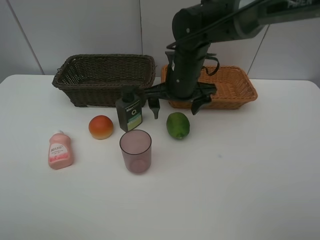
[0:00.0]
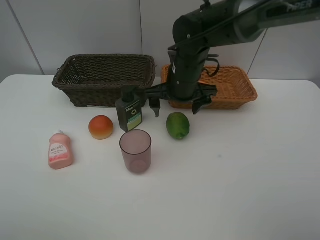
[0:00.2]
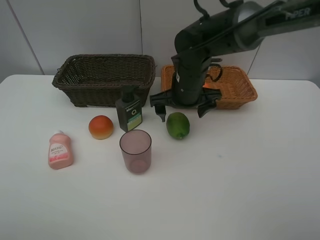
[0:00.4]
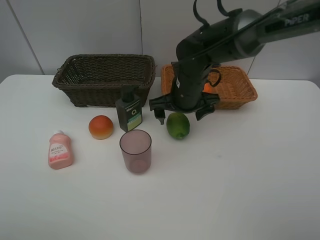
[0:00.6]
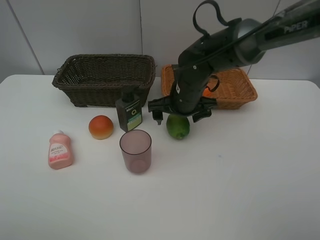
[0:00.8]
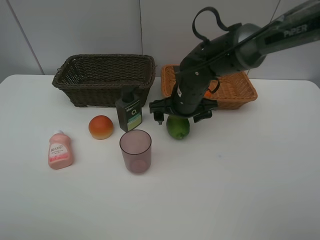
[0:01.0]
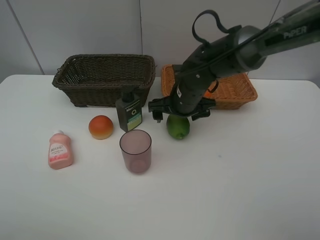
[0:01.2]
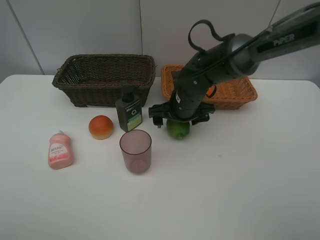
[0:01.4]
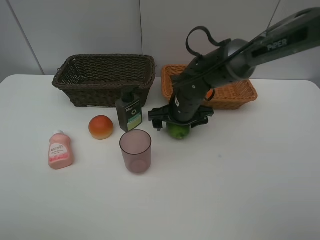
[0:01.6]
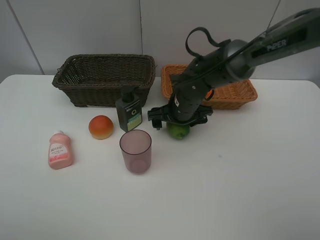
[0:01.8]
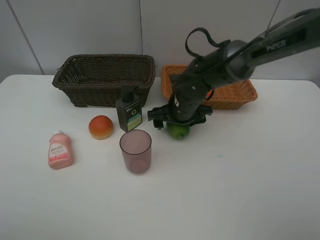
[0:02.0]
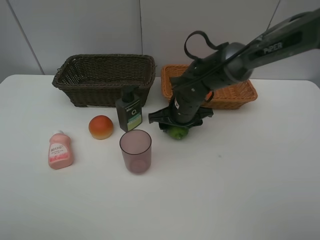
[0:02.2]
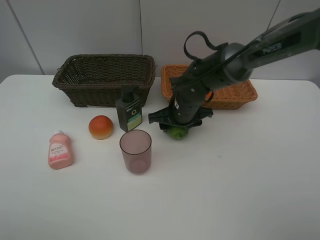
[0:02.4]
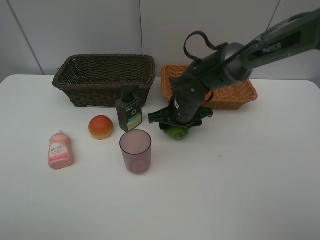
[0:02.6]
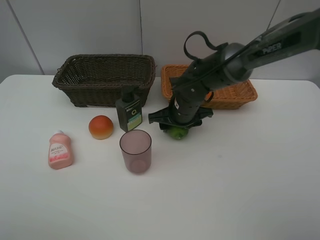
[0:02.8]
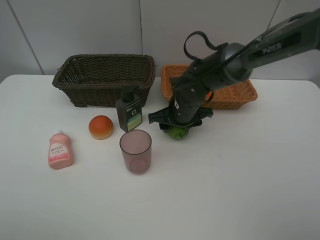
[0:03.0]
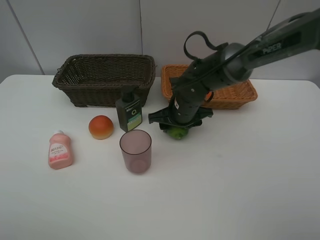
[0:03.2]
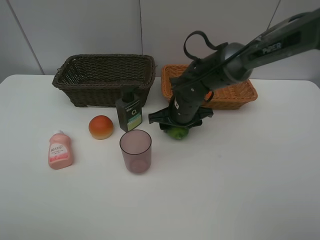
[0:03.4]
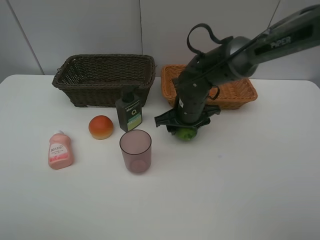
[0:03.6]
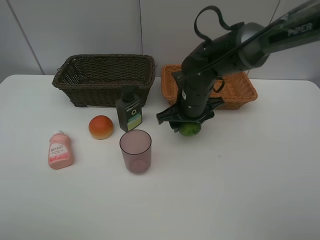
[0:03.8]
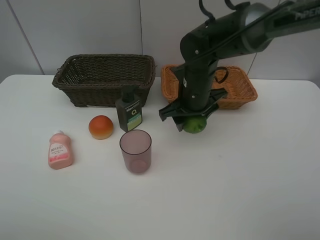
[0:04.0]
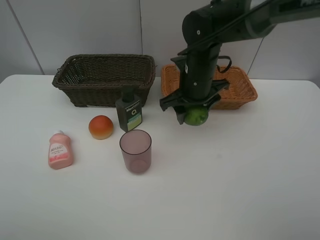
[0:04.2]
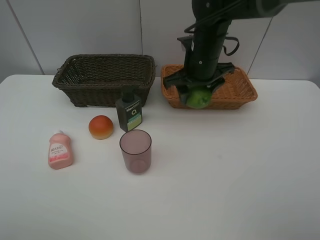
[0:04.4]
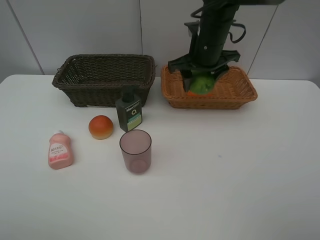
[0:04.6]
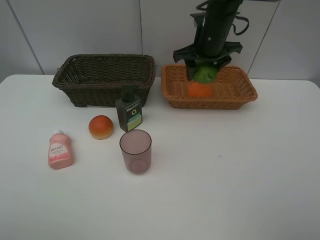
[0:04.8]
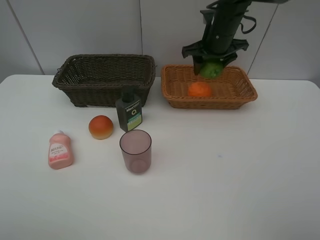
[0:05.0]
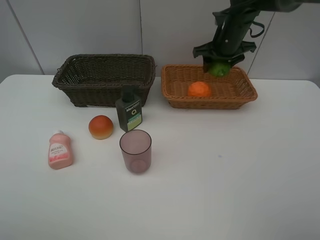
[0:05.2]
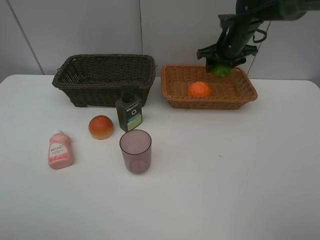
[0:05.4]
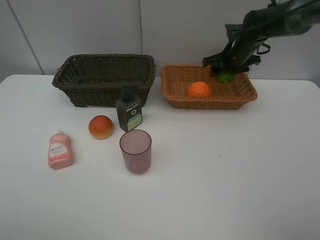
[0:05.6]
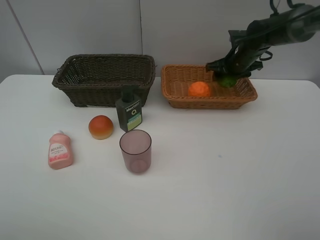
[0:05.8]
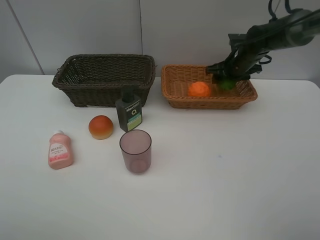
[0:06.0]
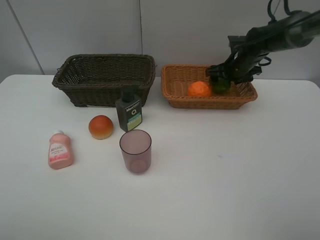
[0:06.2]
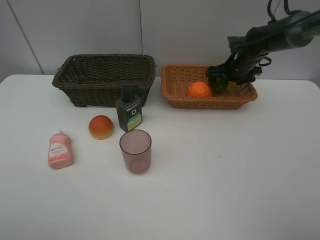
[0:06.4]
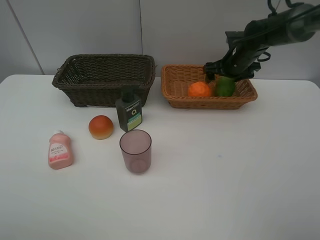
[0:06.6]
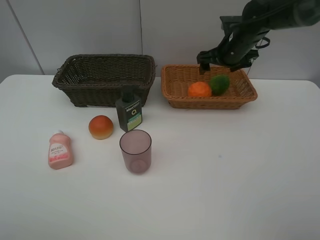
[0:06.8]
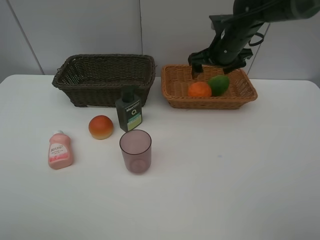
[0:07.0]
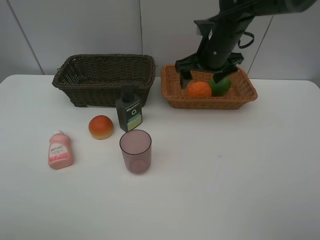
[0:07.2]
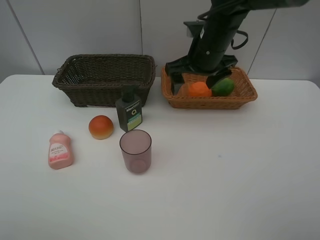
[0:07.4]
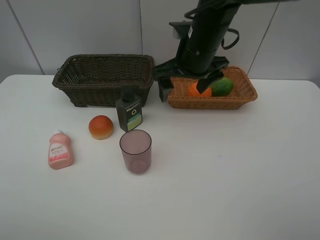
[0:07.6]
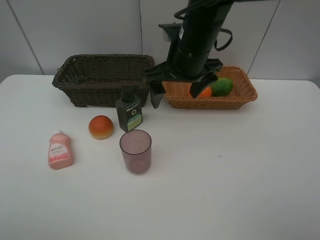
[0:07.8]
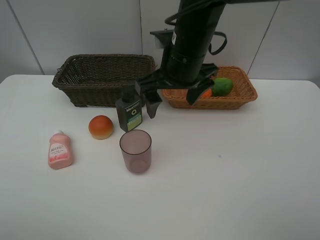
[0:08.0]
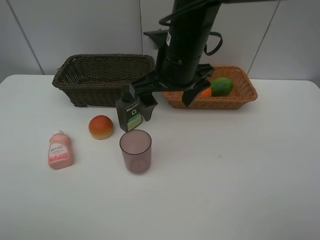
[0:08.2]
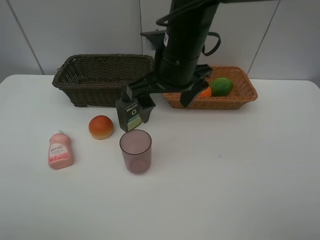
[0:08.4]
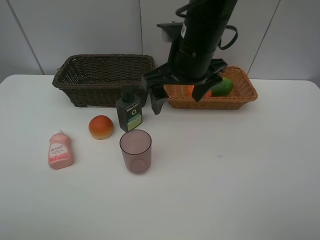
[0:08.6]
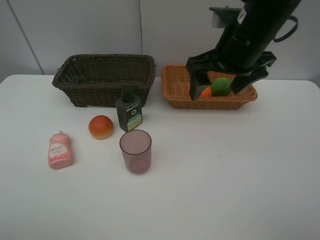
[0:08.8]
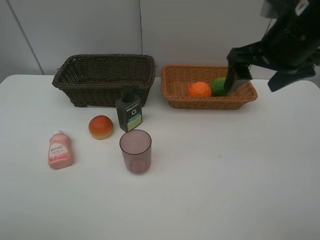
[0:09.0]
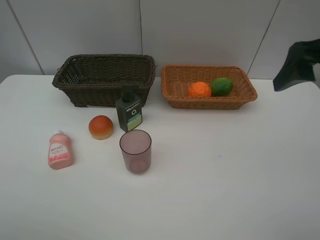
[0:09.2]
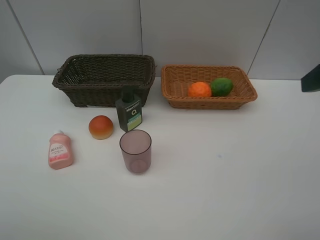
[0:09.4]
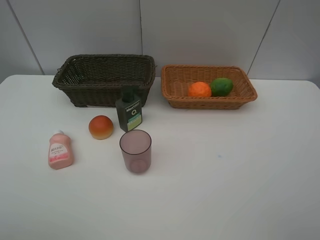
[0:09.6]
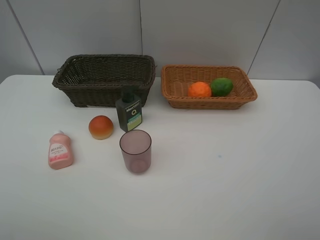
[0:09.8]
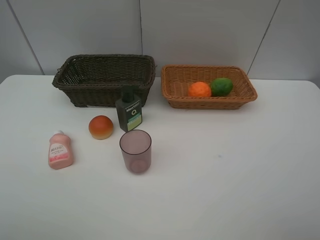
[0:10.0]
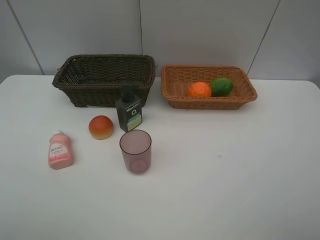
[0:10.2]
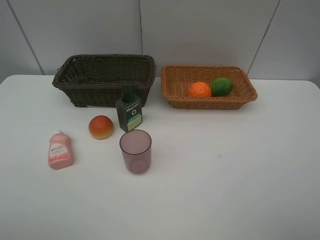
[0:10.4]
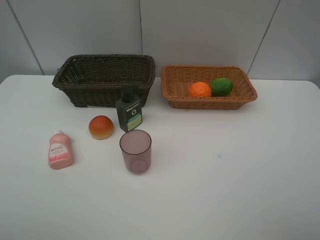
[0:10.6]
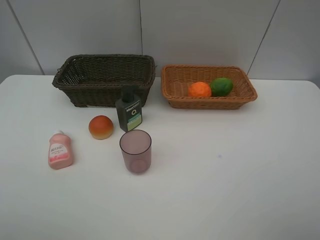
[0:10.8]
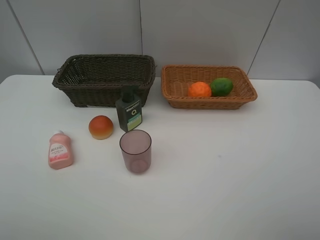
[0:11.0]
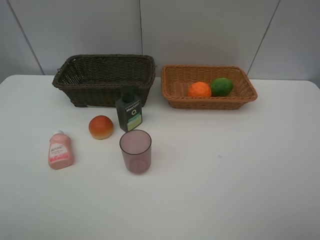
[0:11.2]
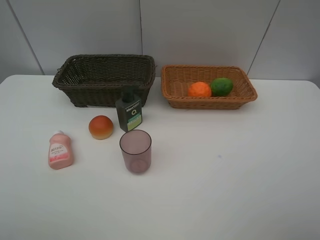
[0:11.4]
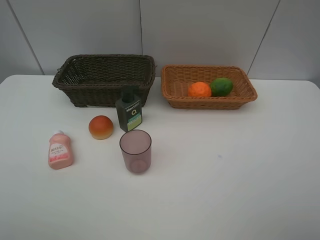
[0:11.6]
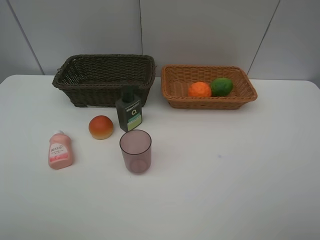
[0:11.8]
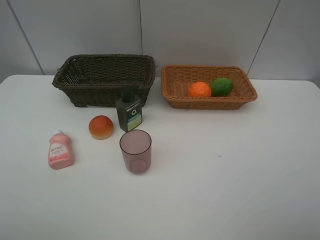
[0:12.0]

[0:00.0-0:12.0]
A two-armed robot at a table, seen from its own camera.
Task of the whole recording: place multiple objects separately in different baskets.
0:00.0 to 0:01.6: The right gripper shifts roughly 10 cm downward.
0:01.6 to 0:03.0: The right gripper closes.
0:03.0 to 0:04.4: The right gripper travels upward by about 10 cm.
0:04.4 to 0:06.0: The right gripper travels to the right, forward and downward by some 20 cm.
0:06.0 to 0:07.6: The right gripper shifts approximately 25 cm to the left, backward and upward, and opens its fingers.
0:07.6 to 0:09.0: The right gripper heads to the right, backward and upward, covering some 15 cm.
0:09.0 to 0:10.4: The right gripper moves backward, approximately 25 cm.

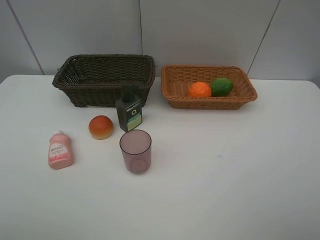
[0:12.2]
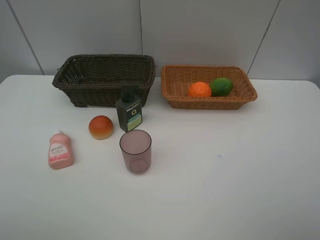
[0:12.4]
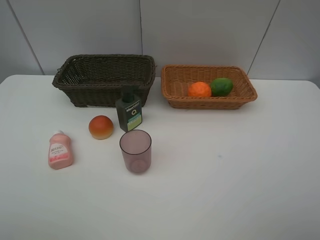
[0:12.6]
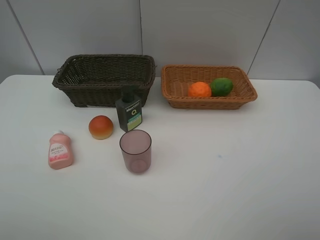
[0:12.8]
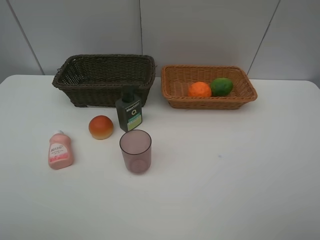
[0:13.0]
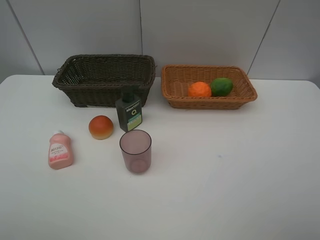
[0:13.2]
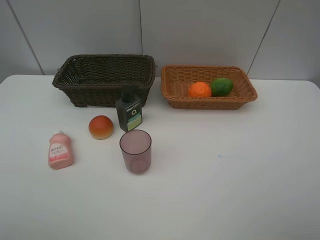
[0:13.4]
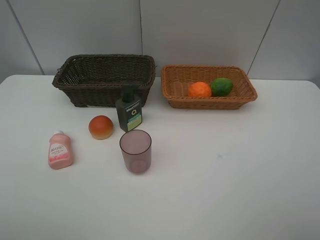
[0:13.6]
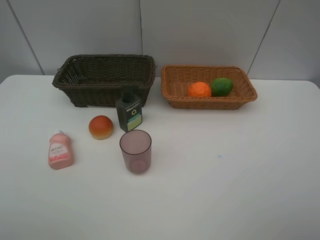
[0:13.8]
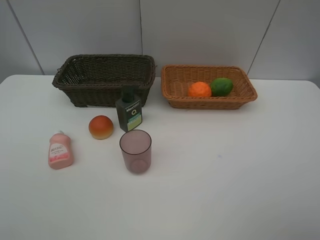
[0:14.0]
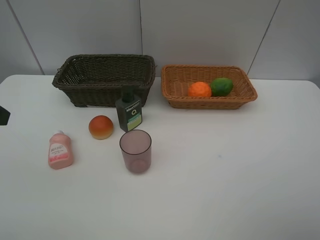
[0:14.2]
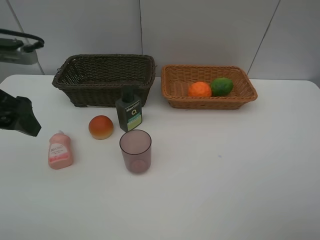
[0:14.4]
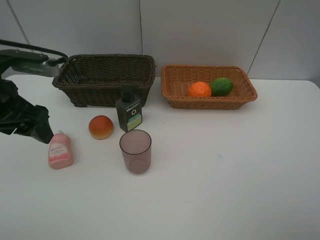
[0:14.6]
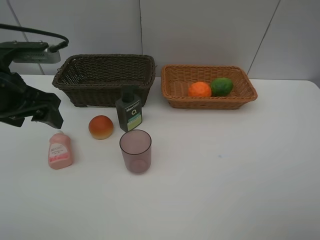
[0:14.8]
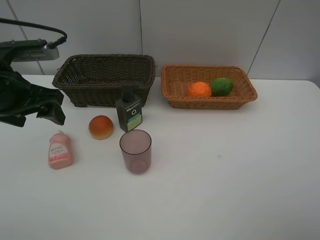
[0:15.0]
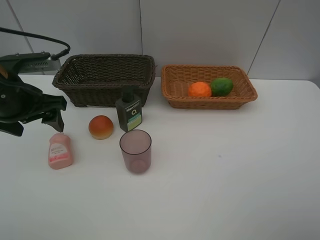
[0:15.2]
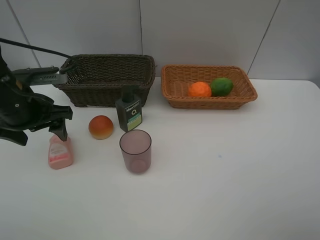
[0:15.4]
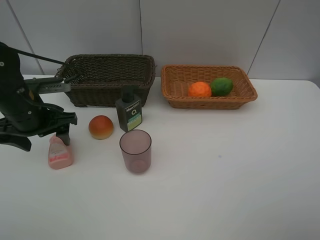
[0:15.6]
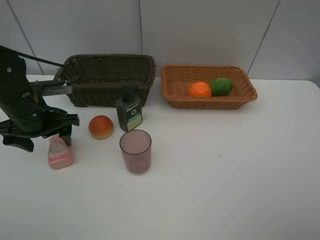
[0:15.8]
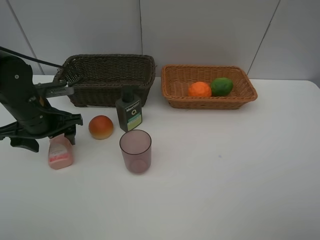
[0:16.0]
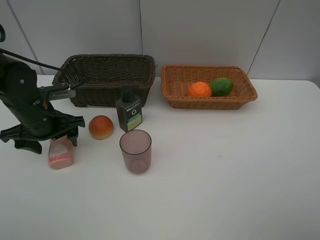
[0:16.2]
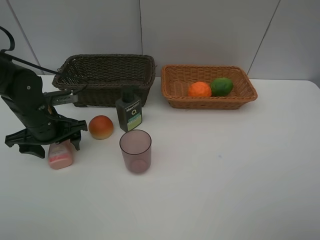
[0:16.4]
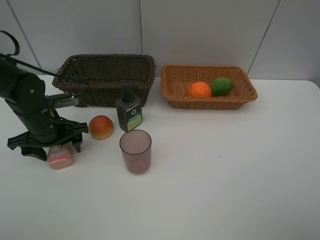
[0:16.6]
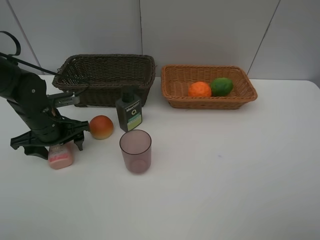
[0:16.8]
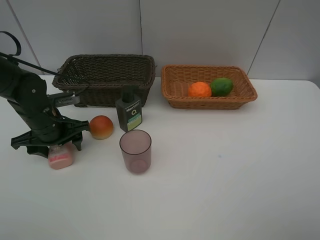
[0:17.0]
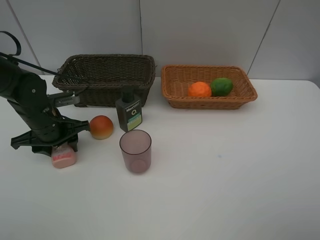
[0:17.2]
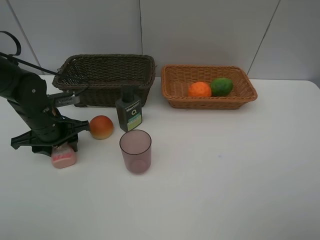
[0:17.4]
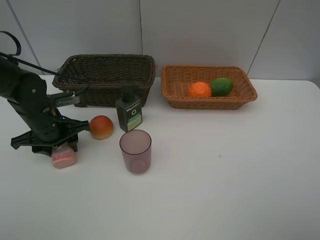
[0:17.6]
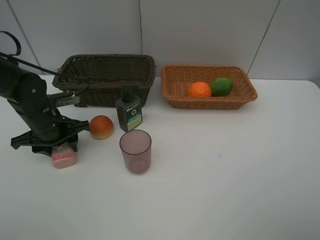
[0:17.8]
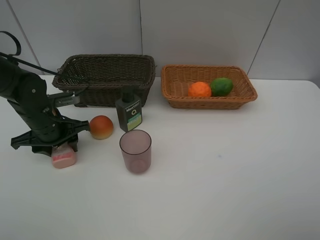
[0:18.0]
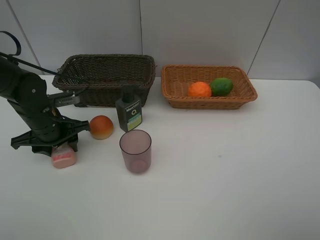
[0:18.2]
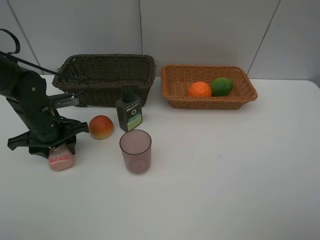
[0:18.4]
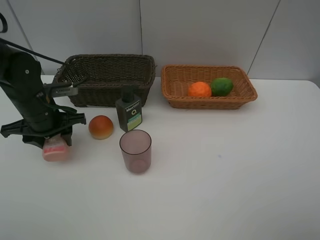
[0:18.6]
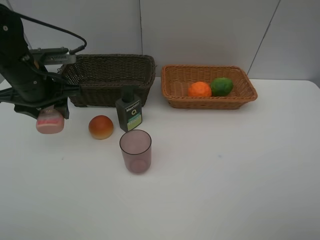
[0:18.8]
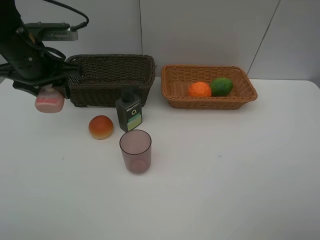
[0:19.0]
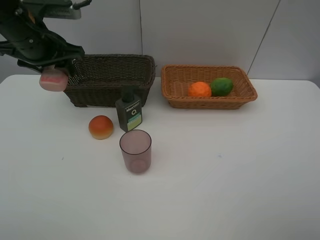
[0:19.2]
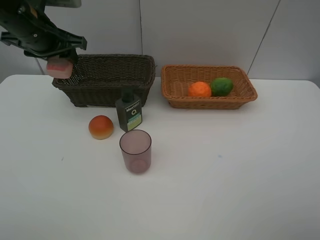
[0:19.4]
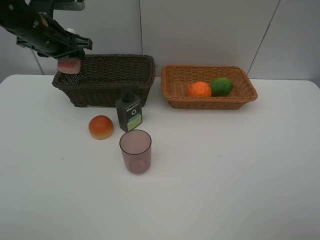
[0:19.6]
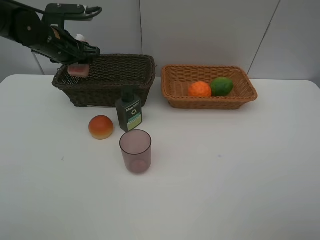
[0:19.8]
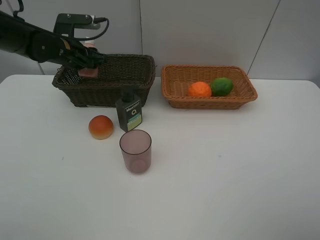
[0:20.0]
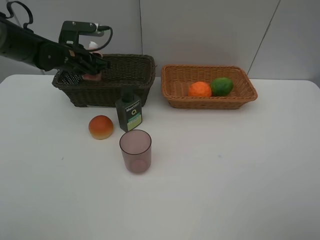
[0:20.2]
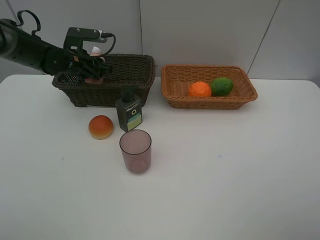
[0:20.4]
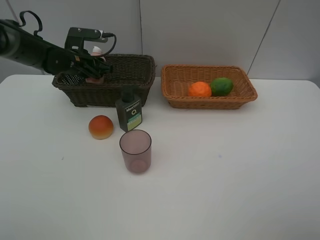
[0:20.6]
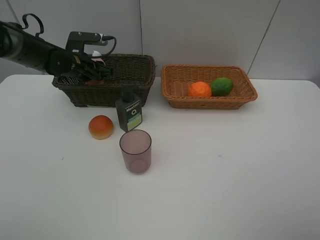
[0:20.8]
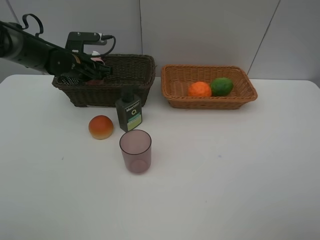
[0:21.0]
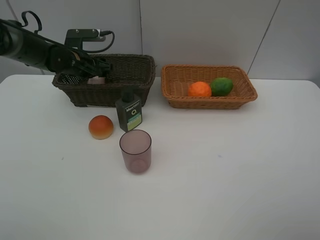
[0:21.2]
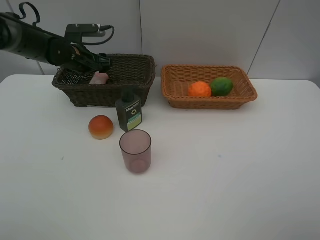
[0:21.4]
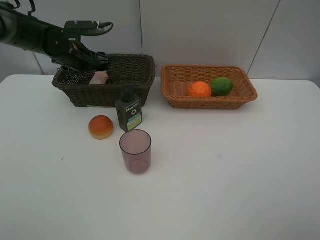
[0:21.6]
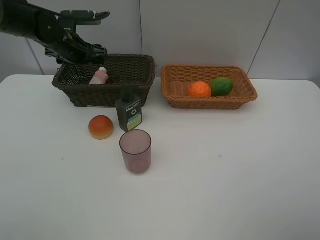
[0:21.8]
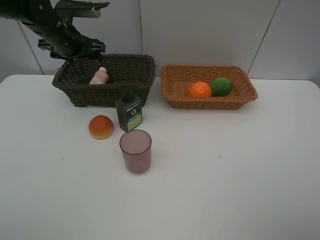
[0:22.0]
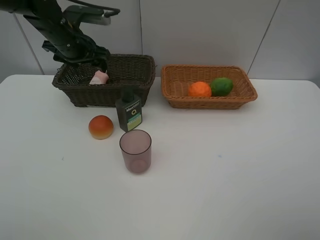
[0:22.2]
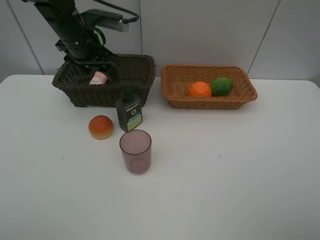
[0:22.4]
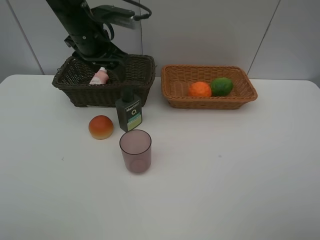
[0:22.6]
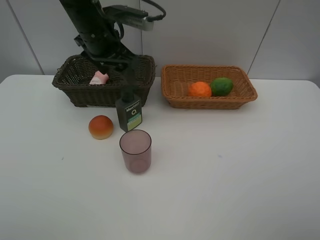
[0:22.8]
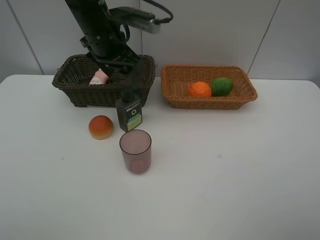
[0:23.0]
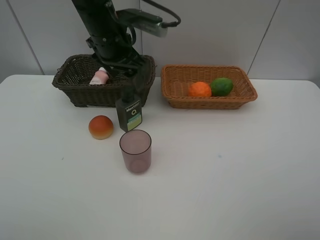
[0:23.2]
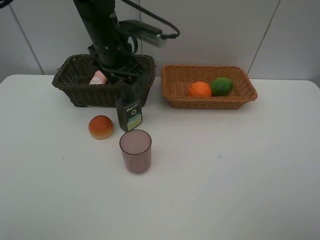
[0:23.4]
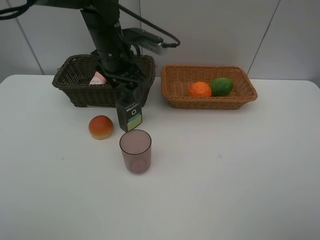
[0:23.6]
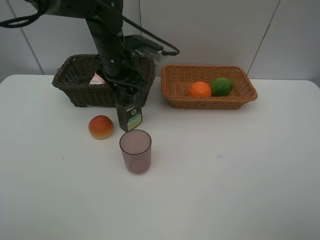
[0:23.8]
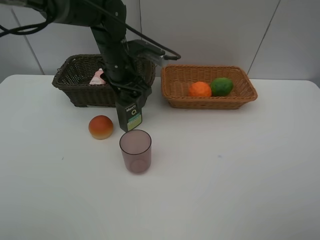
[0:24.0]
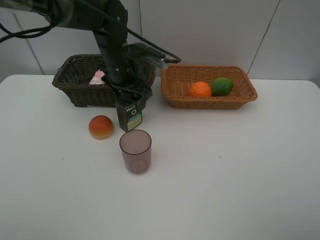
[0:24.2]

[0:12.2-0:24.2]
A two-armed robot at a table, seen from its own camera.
Task of the whole recording: place multiple objects separately in different baskets.
0:13.8 to 0:15.2: The left gripper is displaced forward and downward by roughly 25 cm.
0:15.2 to 0:16.6: The left gripper shifts some 10 cm downward.
0:16.6 to 0:18.2: Both grippers stay about where they are.
0:18.2 to 0:19.8: The left gripper travels forward and upward by approximately 15 cm.
0:19.8 to 0:21.2: The left gripper goes roughly 5 cm downward.
0:21.2 to 0:22.6: The left gripper shifts about 15 cm upward, to the right and backward.
0:22.6 to 0:24.2: The left gripper travels downward and to the right by roughly 10 cm.
